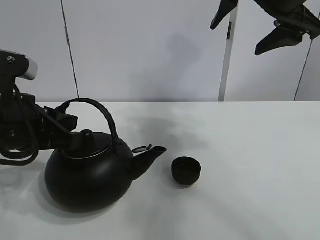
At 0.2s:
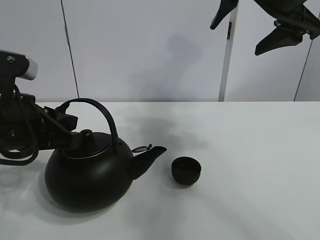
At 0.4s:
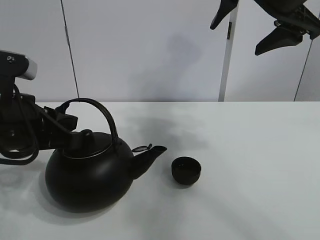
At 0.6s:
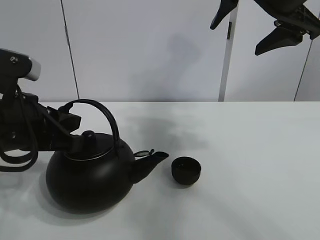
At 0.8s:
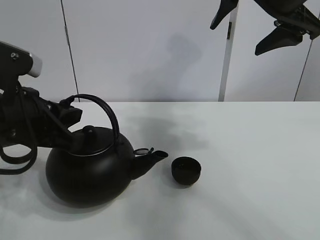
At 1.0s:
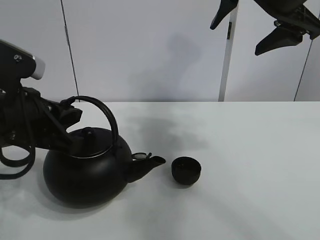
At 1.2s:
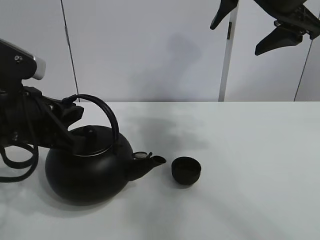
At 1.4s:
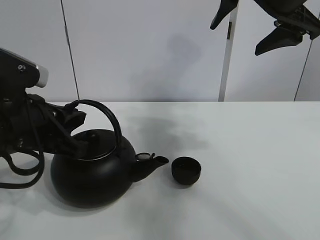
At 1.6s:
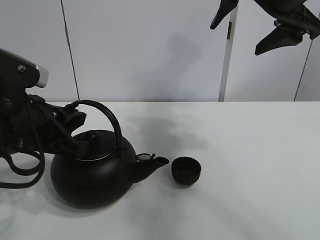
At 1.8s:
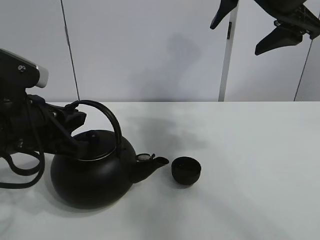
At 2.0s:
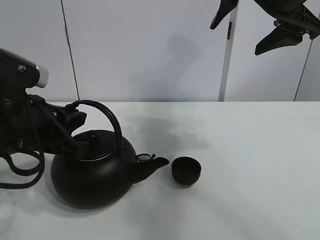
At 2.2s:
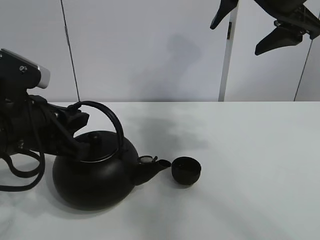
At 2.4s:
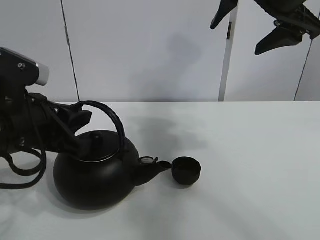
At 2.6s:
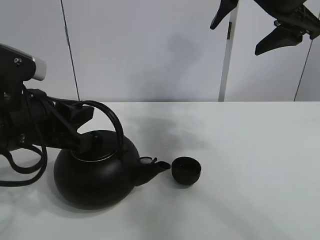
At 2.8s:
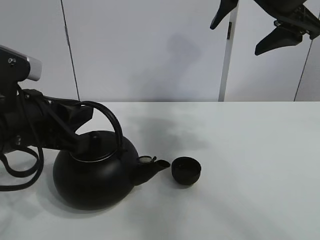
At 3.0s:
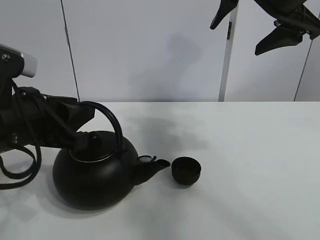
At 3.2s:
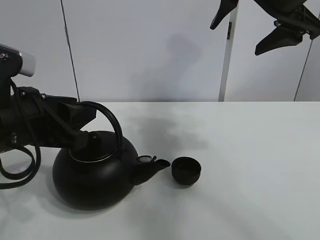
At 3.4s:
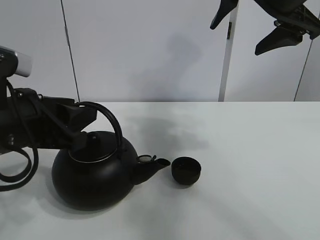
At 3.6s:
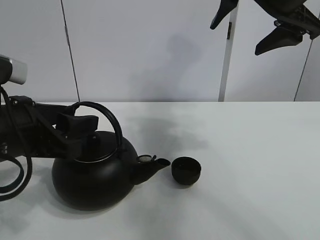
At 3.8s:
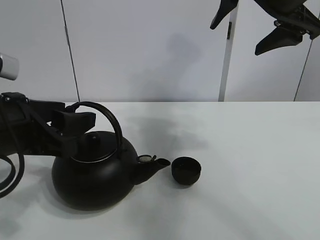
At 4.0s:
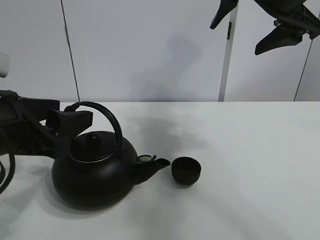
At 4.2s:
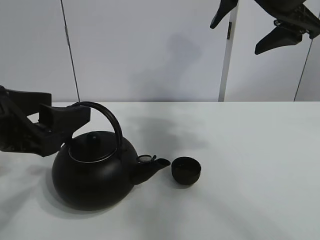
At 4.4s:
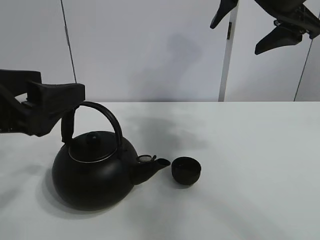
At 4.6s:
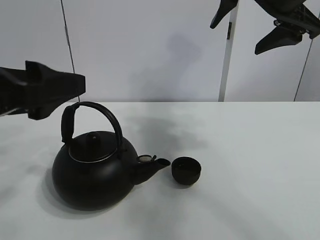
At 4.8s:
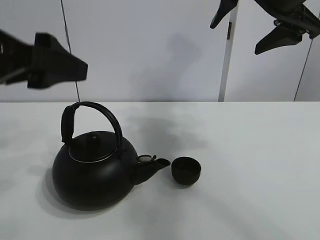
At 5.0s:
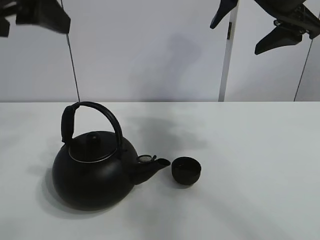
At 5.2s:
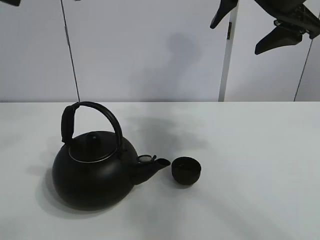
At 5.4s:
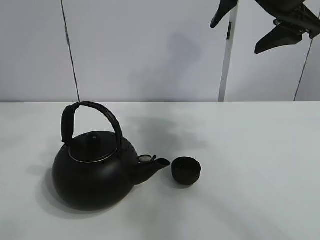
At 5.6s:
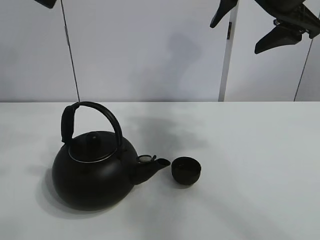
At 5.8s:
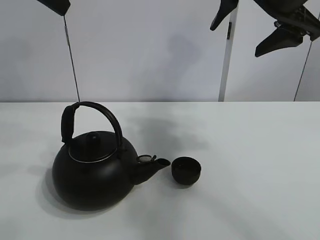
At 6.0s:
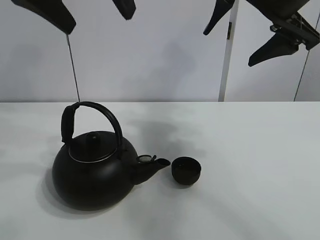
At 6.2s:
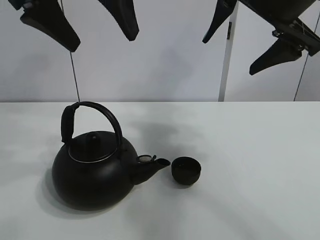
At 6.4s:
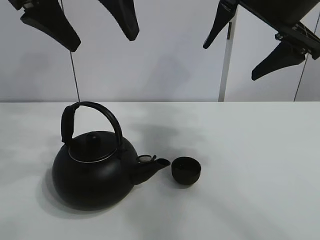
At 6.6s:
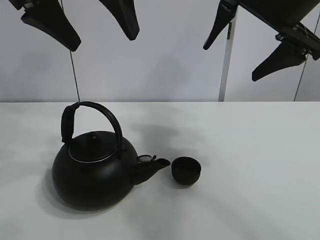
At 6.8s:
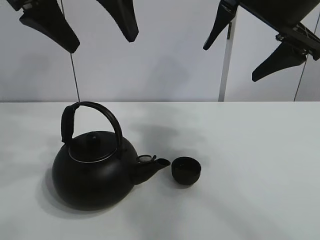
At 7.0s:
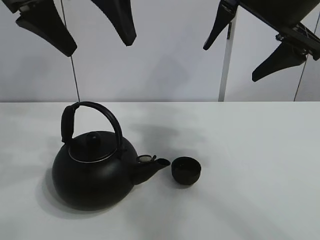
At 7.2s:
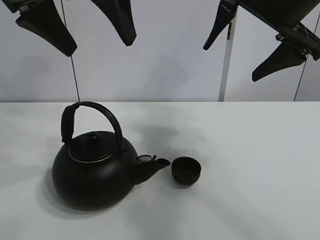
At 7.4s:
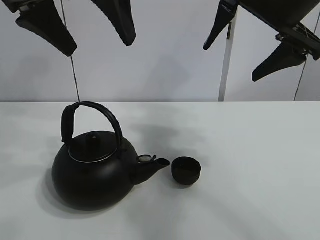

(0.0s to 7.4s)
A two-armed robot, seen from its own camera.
Task of the whole recording: pour tea into the teacup.
0.0s - 3.0s: The grippers stay close to where they were, moving slightly.
3.0s - 4.4s: The left gripper changes place by about 5 cm, and opens its fingers.
4.4s - 6.0s: The left gripper is displaced upward, forward and to the right by roughly 20 cm.
6.0s - 7.4s: There are only small adjustments of the grippers.

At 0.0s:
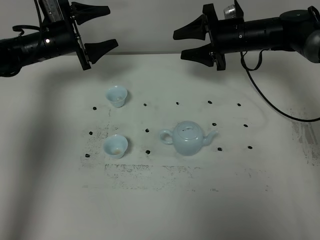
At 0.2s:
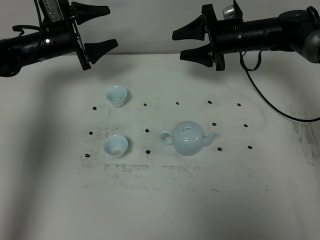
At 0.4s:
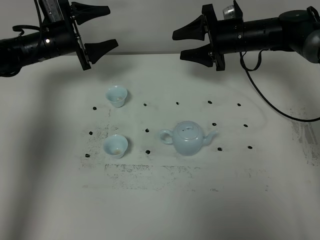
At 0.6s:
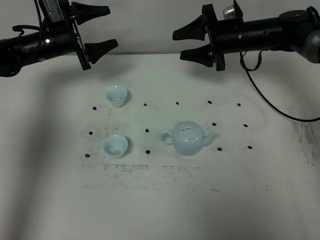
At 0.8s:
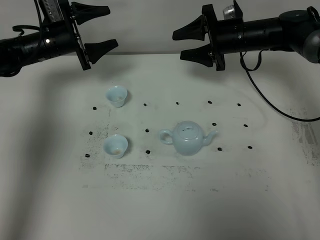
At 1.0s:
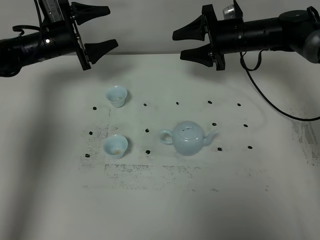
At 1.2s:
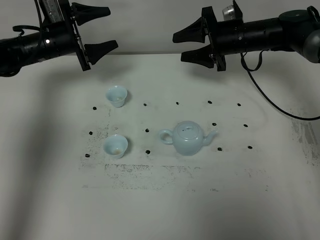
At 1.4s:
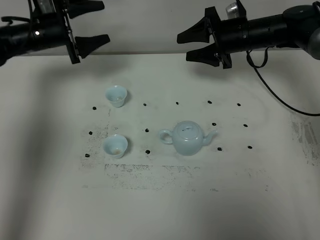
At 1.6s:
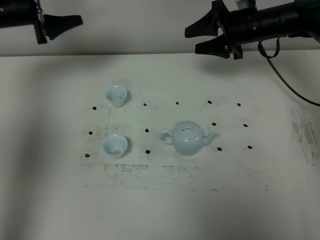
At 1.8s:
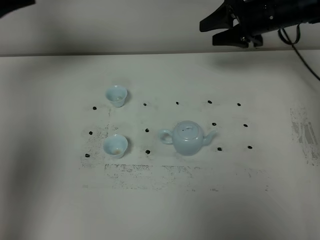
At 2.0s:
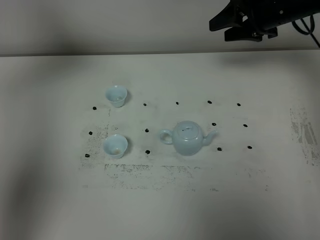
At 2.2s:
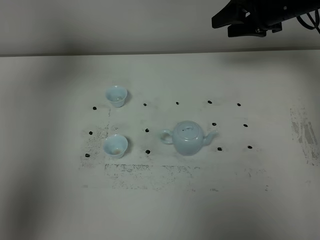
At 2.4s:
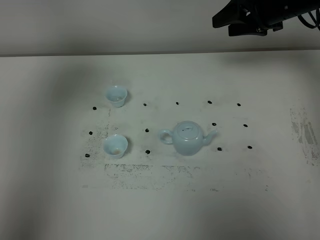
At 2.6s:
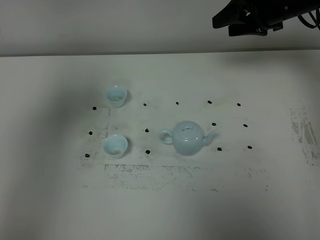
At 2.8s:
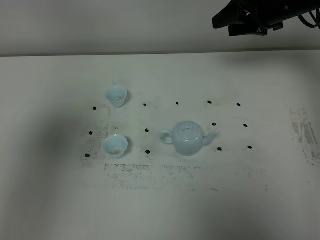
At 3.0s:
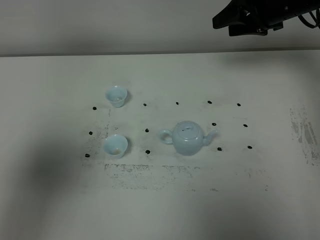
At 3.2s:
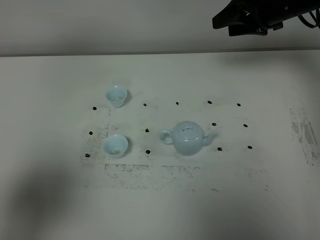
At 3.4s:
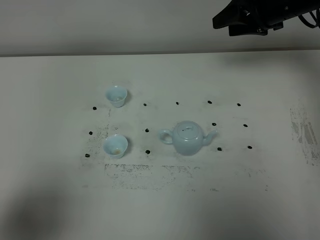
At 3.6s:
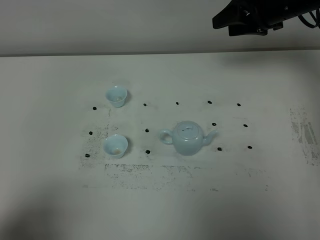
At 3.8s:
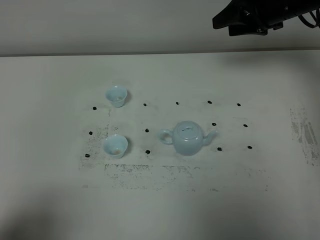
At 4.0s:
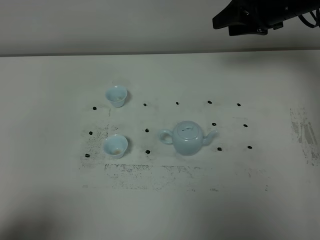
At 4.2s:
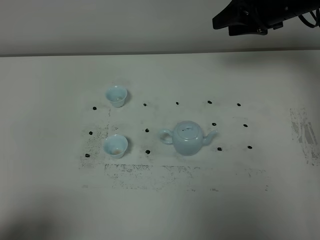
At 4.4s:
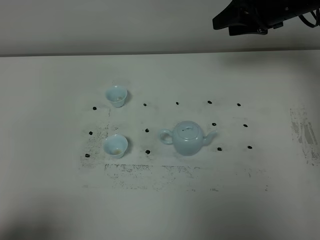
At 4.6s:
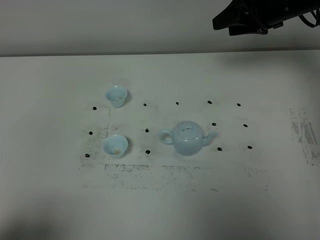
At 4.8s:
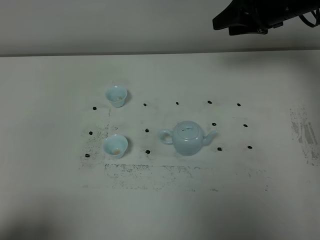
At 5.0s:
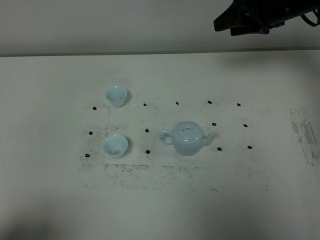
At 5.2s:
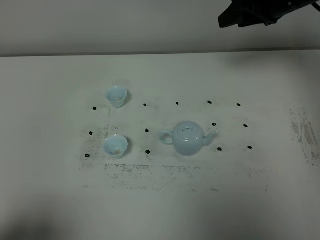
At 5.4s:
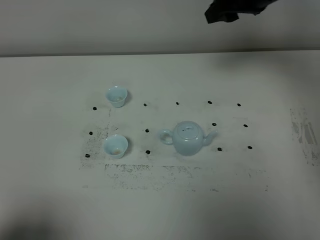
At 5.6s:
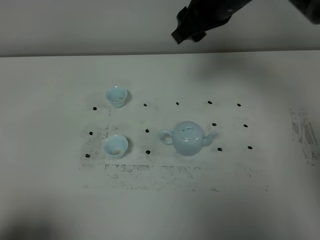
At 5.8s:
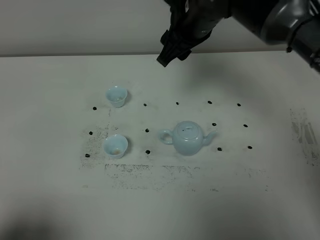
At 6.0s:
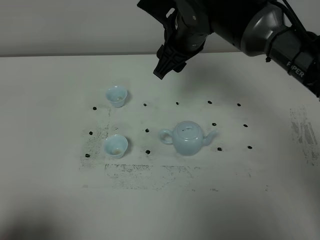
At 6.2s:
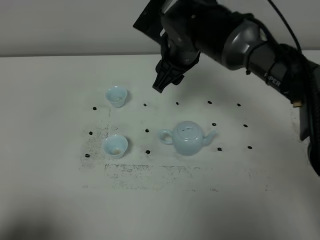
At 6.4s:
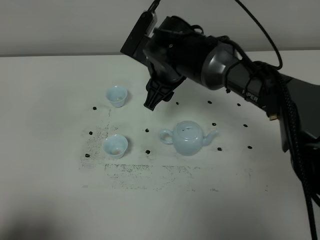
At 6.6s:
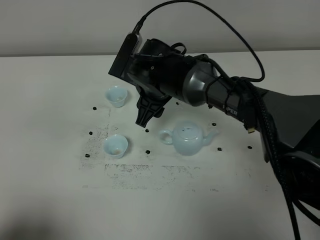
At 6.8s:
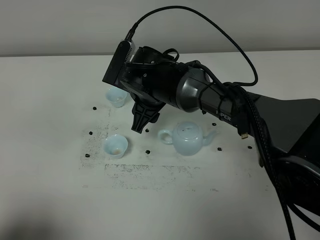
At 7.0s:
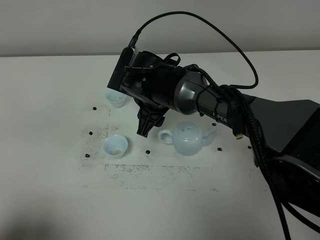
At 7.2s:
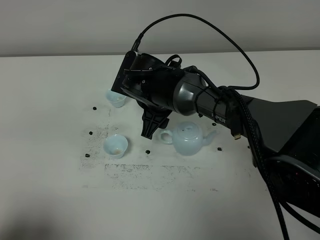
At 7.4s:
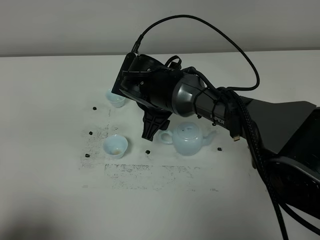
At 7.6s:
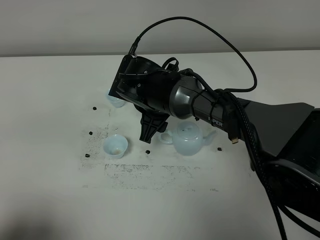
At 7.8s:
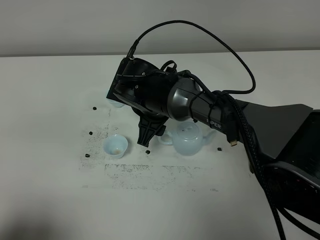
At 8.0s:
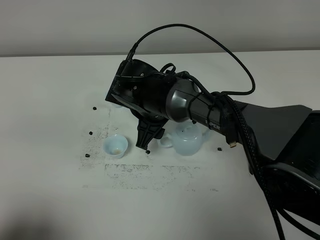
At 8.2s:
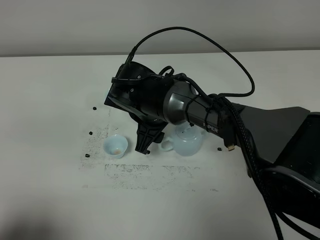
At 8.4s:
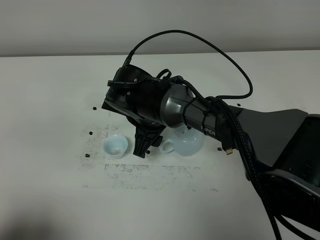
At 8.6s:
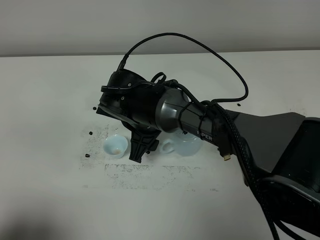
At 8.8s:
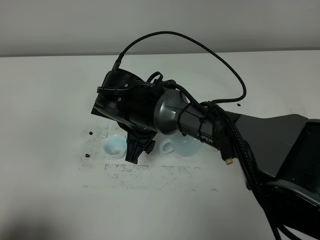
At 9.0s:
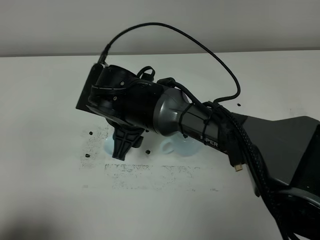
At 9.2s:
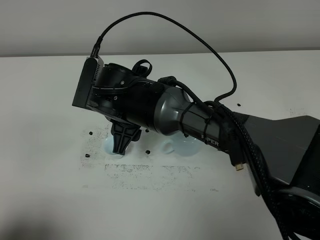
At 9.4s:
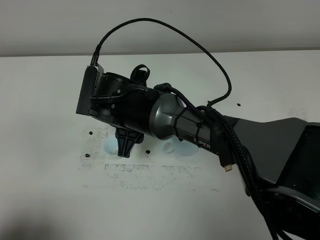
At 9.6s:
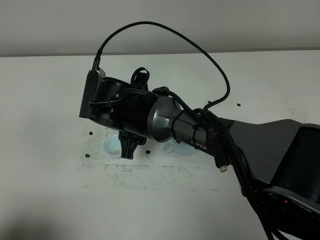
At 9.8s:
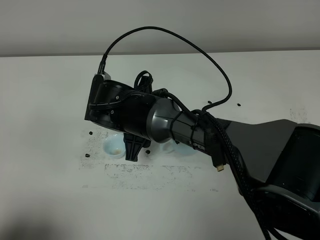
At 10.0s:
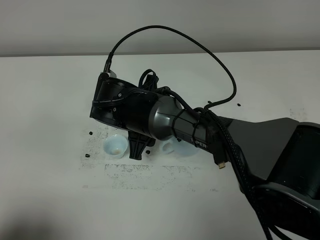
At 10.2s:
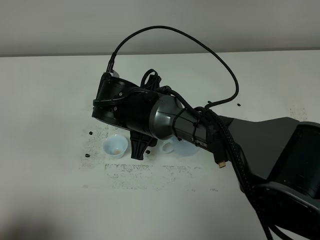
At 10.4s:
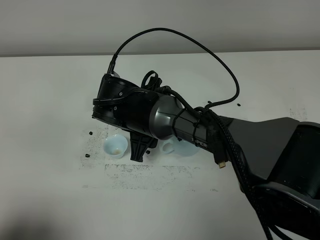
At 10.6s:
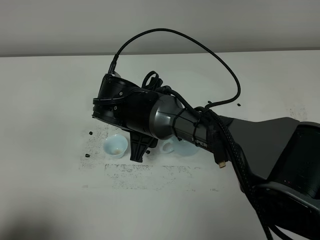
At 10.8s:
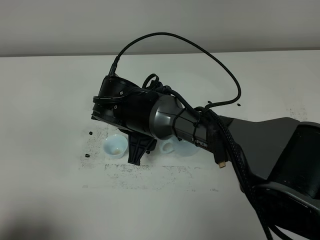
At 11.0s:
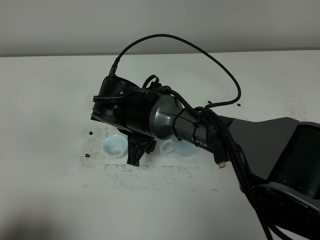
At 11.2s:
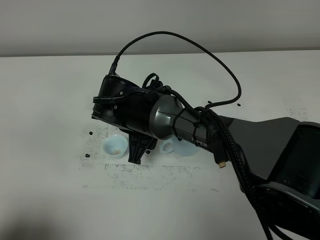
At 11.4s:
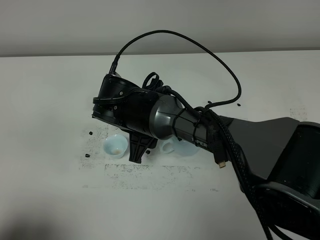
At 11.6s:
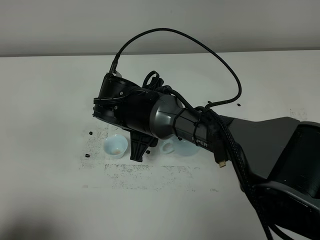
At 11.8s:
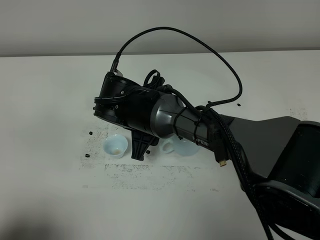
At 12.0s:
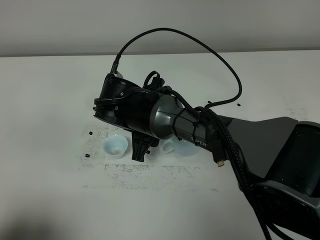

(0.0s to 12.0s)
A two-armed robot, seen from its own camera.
Task of the whole recording: grasp the blue porcelain teapot and pour the tea into the two blue porcelain teacups one by one, put the blue porcelain teapot back in its original place.
0.0s - 1.6s: The left gripper goes about 15 cm upward and to the left.
1.6s - 3.0s: The right gripper moves upward, approximately 5 cm, while the left gripper goes about 40 cm backward.
3.0s - 4.4s: The left gripper moves downward and backward, approximately 15 cm.
4.4s - 6.0s: The right gripper heads to the left, covering about 20 cm.
6.0s - 7.6s: The right gripper shifts some 15 cm downward and to the left.
7.6s - 9.0s: The right gripper changes place by about 5 cm.
9.0s - 10.4s: The grippers make only small movements.
10.4s - 12.0s: Neither gripper changes place.

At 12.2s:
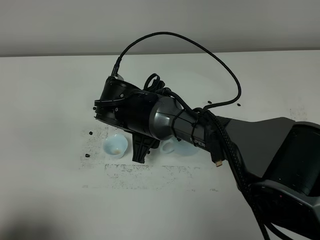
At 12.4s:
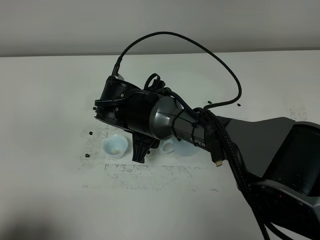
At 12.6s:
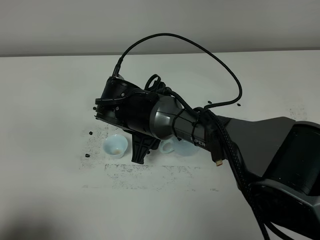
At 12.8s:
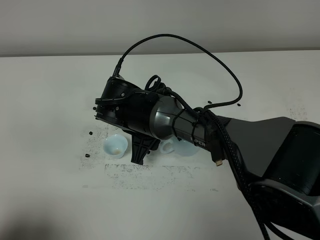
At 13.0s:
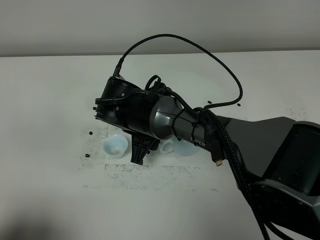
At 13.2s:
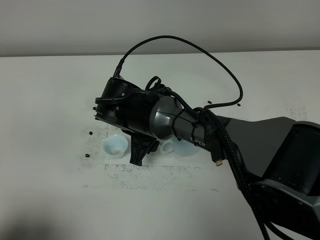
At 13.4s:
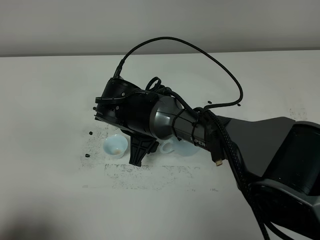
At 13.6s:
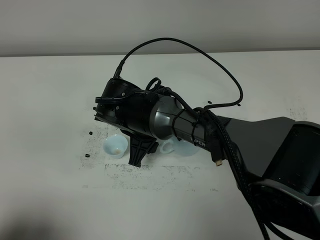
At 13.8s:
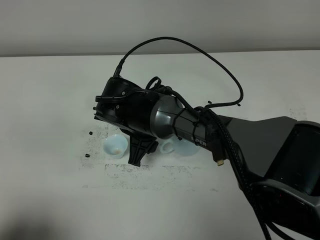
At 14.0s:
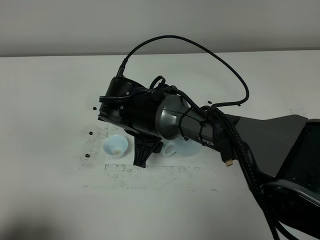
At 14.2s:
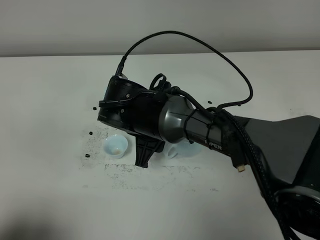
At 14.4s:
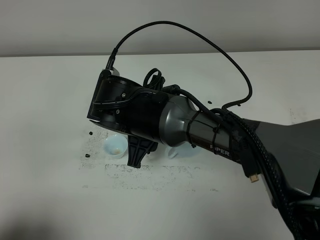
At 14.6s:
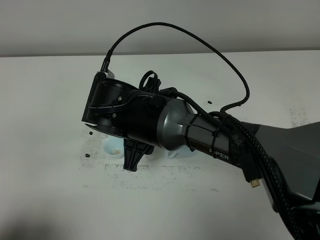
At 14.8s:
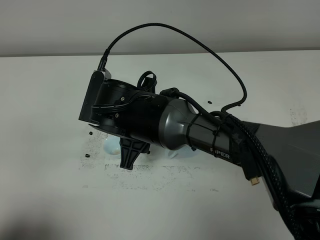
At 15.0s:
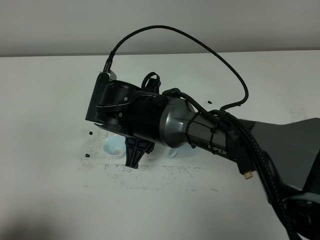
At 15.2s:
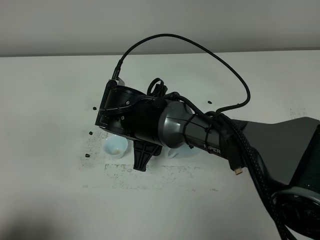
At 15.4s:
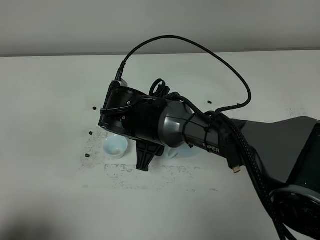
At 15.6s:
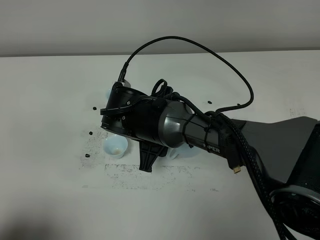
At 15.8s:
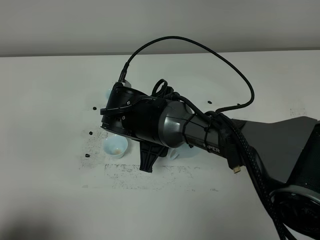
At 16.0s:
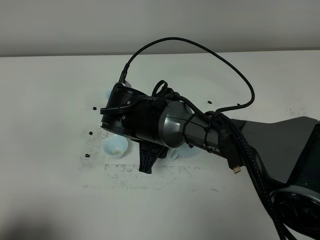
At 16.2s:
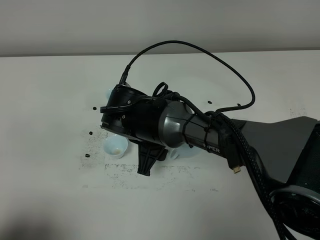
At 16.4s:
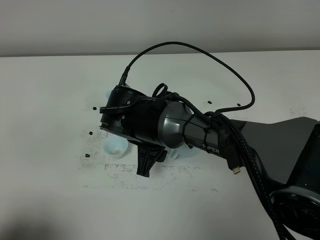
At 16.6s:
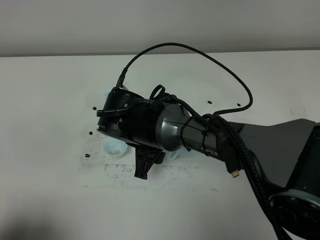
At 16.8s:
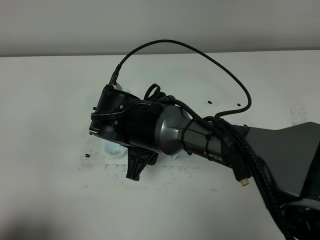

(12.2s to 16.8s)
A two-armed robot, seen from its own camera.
Task of the whole recording: grasp the blue porcelain teapot and pour the tea into the two blue porcelain teacups one by one, put the blue porcelain teapot back in its original place.
12.2s - 13.8s: Both grippers stay about where they are.
13.8s - 16.8s: The grippers stay close to where they were, moving slightly.
